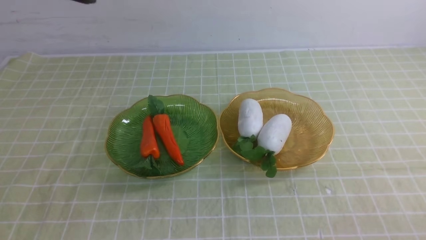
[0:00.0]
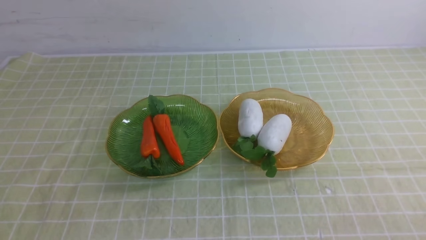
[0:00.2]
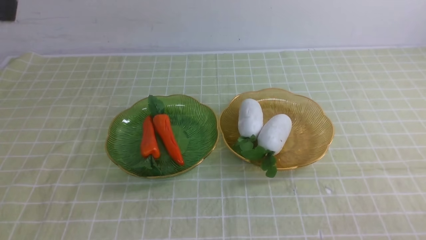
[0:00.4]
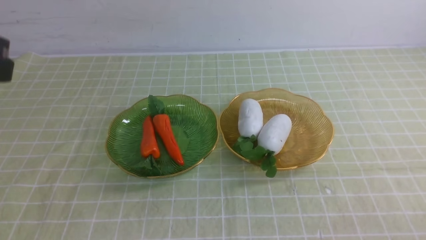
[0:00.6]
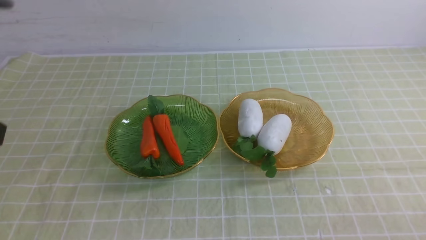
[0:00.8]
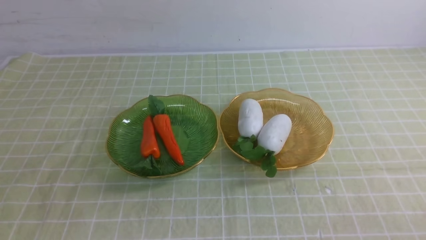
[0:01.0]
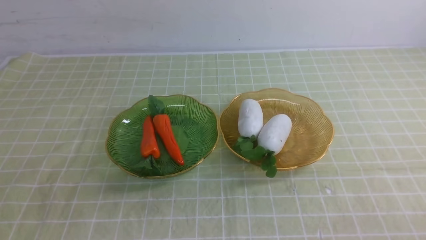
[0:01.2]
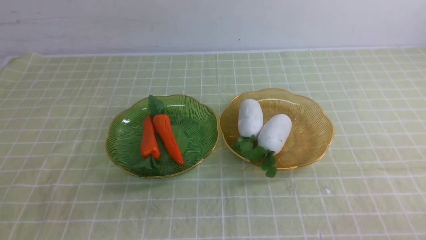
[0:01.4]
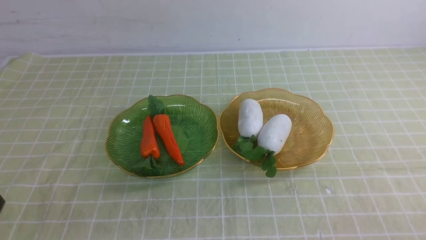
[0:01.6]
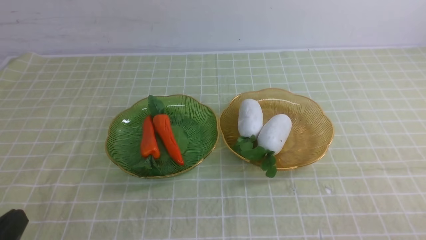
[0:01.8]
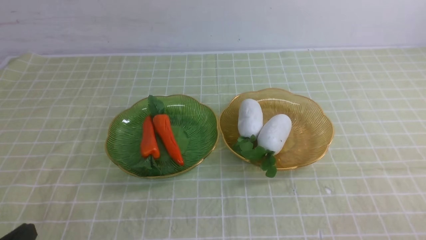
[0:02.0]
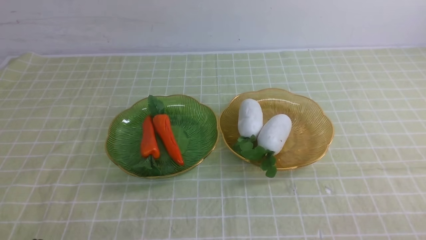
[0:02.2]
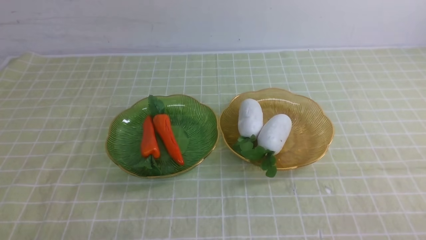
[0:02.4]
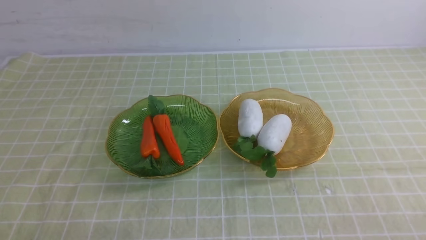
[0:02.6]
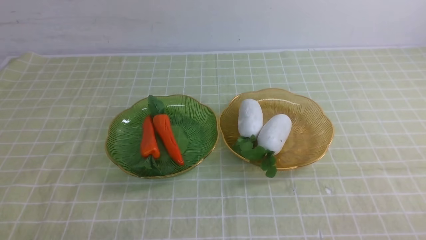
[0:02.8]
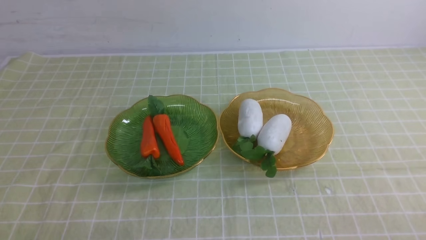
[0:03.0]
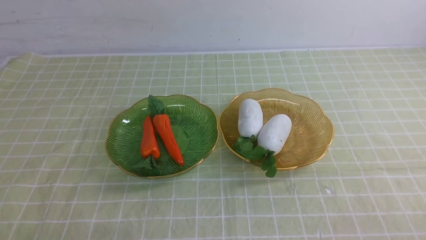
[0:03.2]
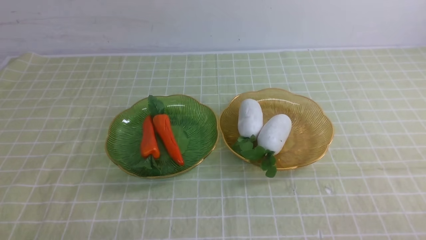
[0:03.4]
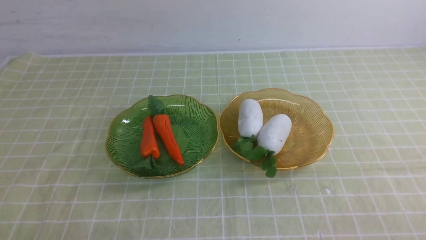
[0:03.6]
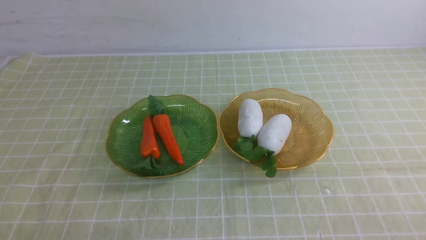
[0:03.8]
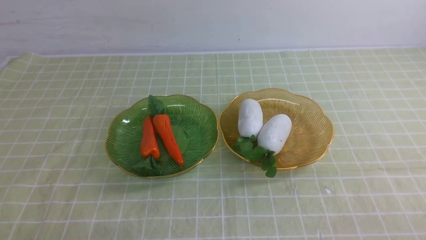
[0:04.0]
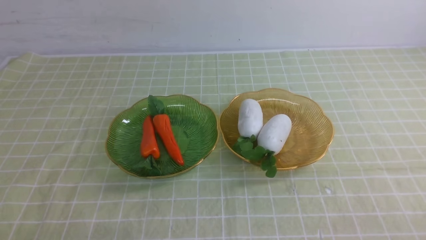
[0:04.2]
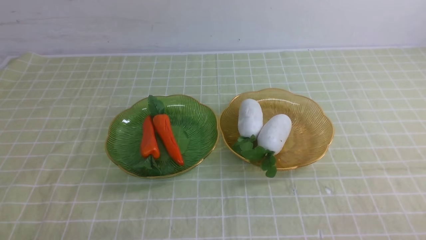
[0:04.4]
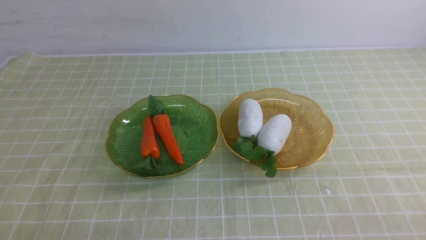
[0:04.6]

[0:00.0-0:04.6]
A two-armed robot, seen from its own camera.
0:03.0 to 0:04.6: Neither gripper changes place.
